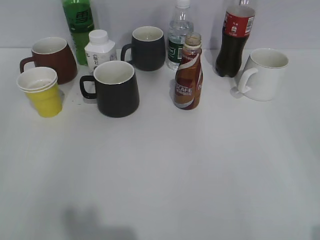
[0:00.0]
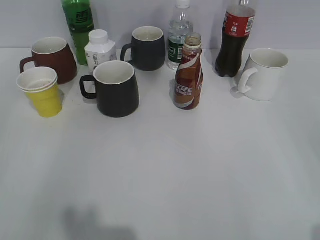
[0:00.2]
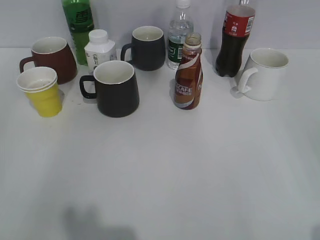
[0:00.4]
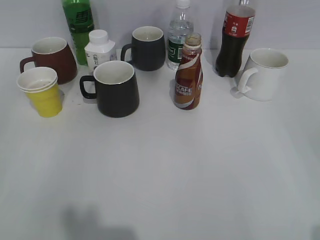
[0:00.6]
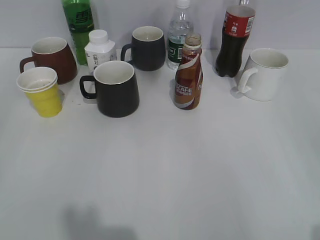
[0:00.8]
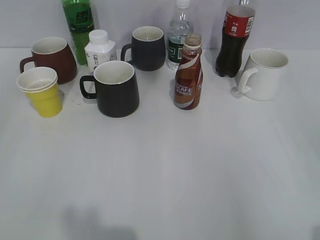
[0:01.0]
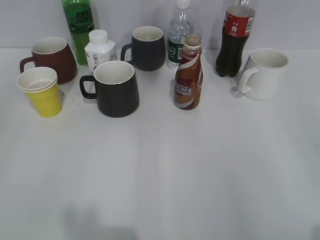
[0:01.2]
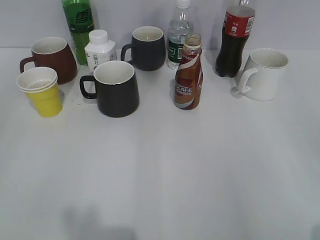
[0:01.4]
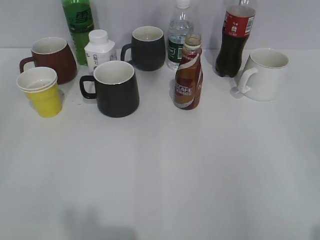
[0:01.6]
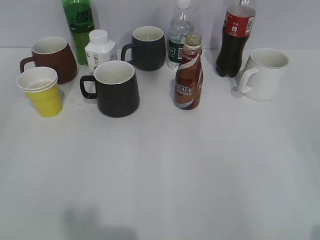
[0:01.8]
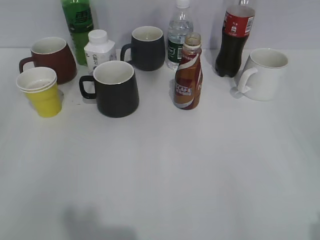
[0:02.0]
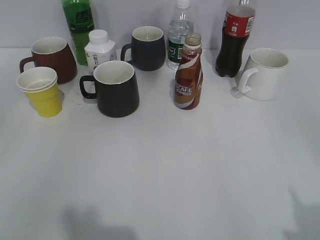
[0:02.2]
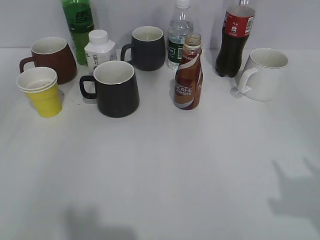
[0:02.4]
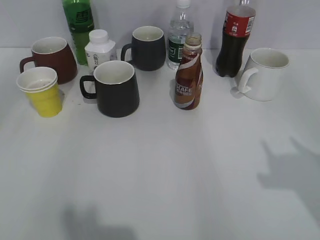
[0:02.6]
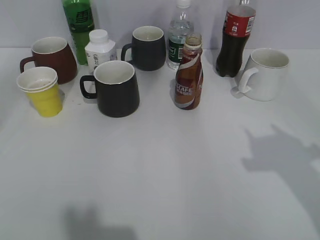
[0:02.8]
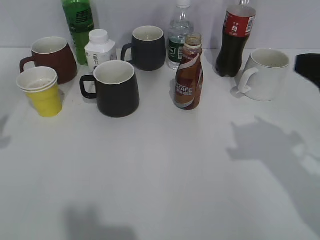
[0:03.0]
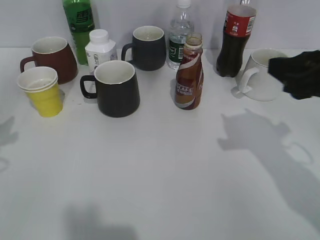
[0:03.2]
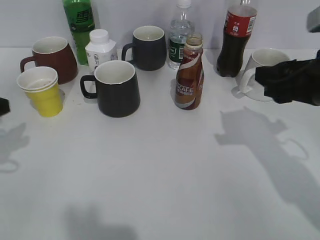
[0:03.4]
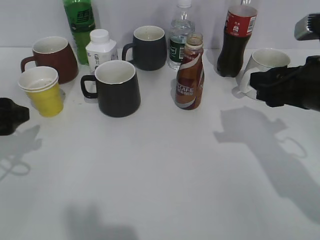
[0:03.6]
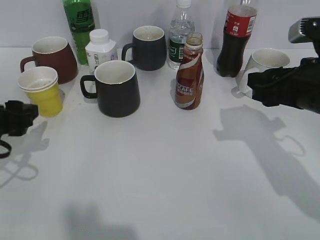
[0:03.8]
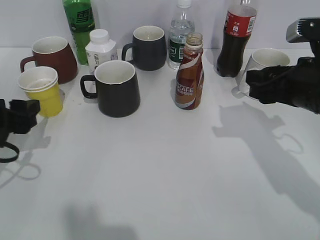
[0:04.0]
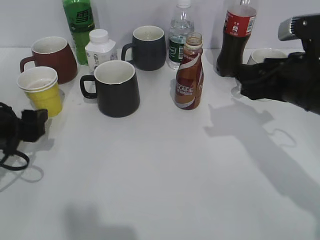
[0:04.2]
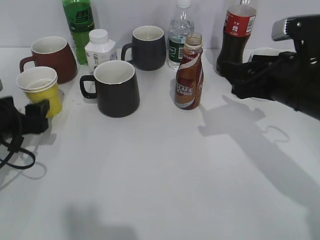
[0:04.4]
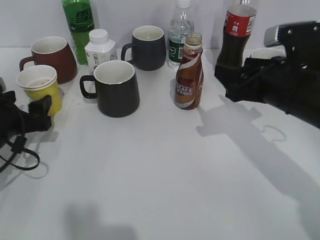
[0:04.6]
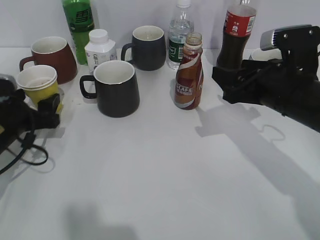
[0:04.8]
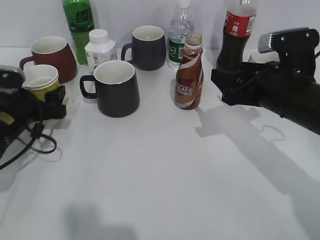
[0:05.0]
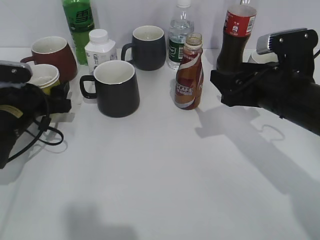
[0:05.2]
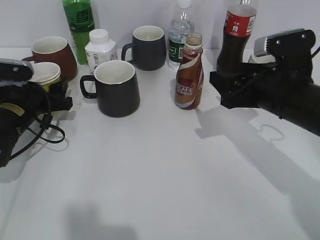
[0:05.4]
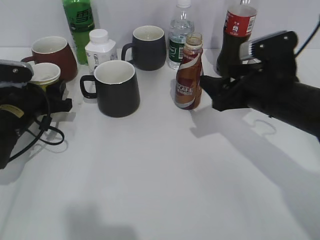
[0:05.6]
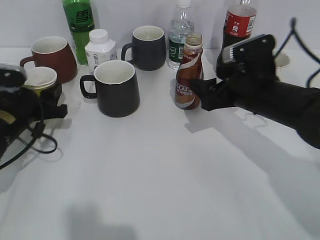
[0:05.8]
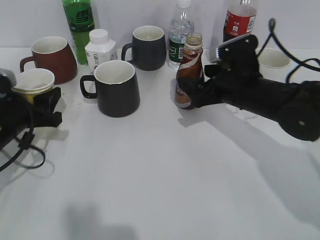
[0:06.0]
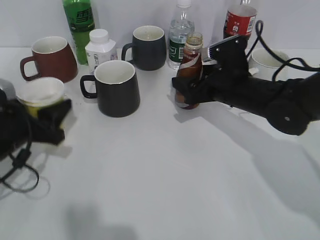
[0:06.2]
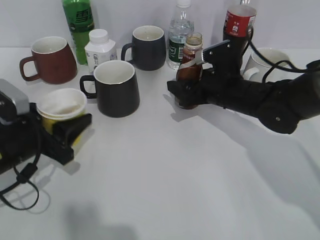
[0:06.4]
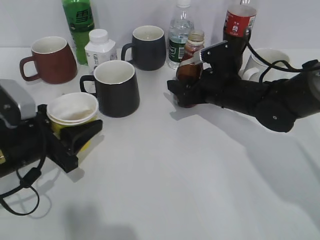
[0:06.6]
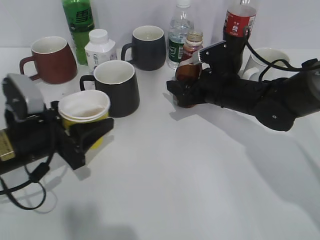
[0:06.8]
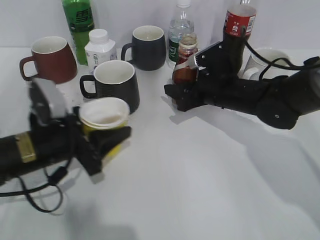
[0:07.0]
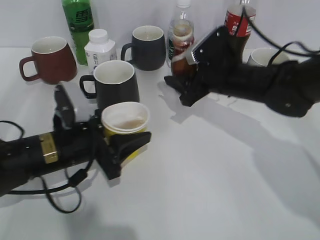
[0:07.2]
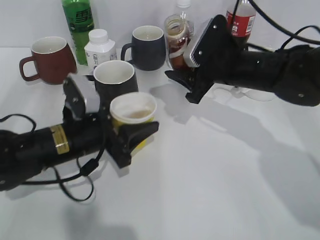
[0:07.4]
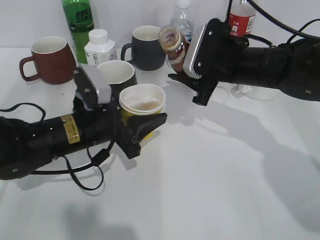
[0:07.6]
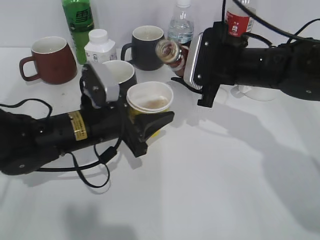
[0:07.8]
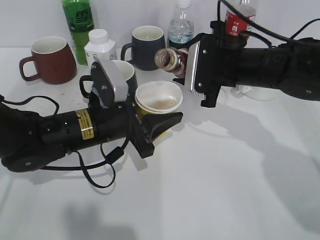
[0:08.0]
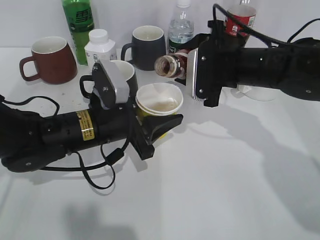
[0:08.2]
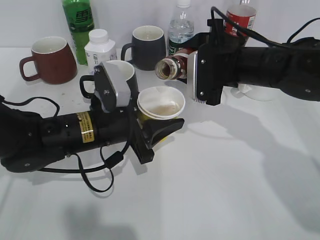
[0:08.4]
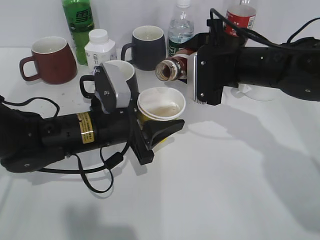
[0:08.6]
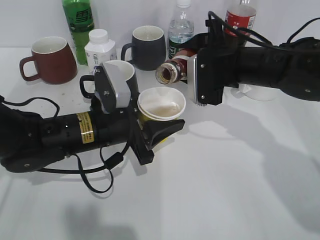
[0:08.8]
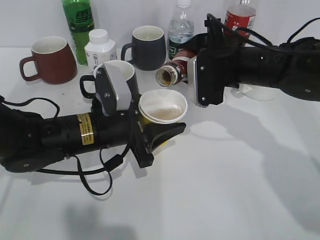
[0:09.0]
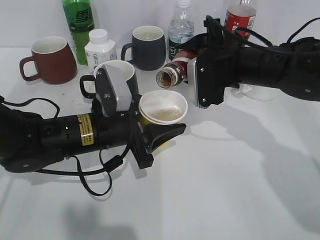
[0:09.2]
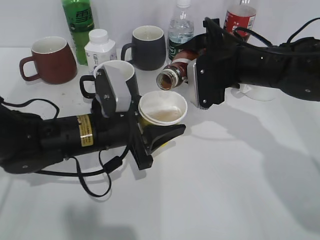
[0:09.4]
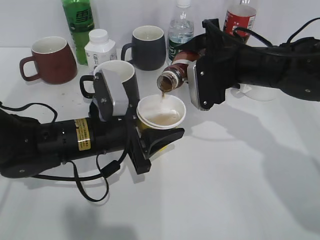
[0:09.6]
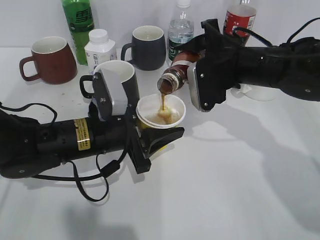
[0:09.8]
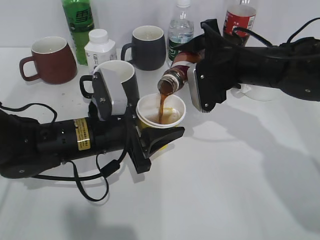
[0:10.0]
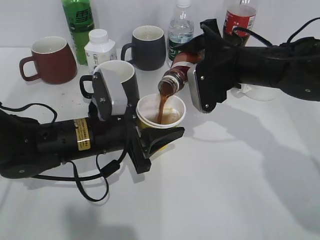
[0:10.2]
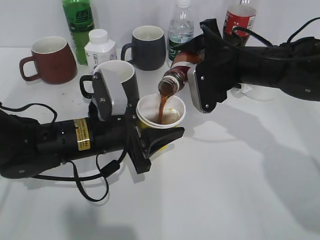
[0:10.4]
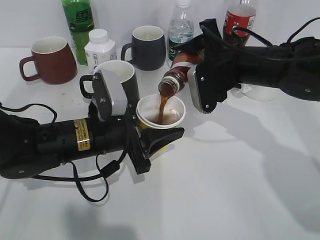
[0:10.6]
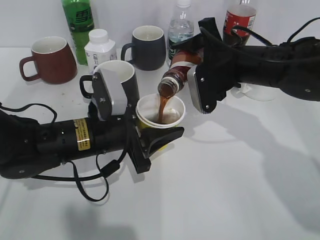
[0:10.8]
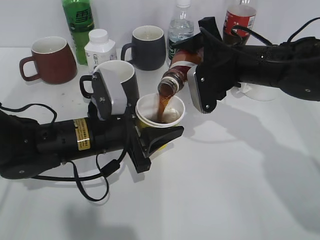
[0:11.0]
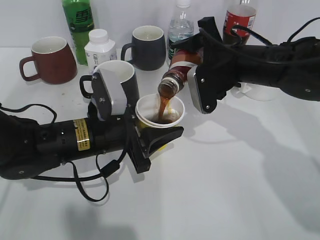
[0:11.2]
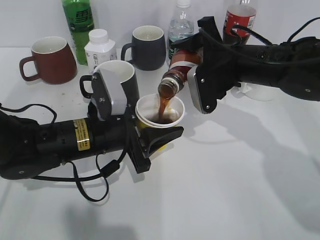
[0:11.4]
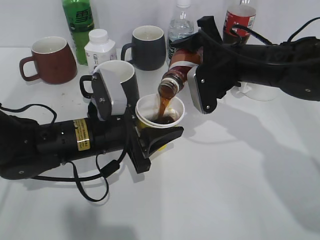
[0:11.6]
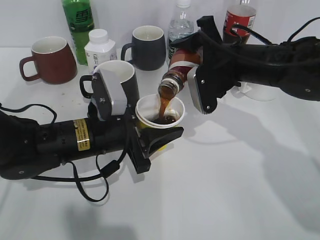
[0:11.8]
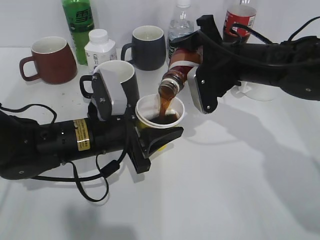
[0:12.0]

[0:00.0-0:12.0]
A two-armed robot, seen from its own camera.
Step, 0:01.8 to 0:05.4: Grasp the yellow paper cup with left gripper.
Step, 0:05.6 to 0:06.6: Grasp the bottle with coffee with right gripper.
0:01.6 to 0:03.0: Both grippers move forward, some 20 cm. The left gripper opens.
0:03.0 to 0:04.4: The left gripper heads downward and forward, covering approximately 15 cm. The right gripper goes about 15 cm forward, downward and to the left, and opens its fingers.
0:04.4 to 0:06.0: The left gripper closes up. Meanwhile the right gripper moves forward and downward, about 10 cm, and opens up.
0:06.0 to 0:07.6: The right gripper moves about 5 cm, and closes up. The left gripper travels to the right by approximately 15 cm.
0:09.0 to 0:12.0: The grippers make only small movements.

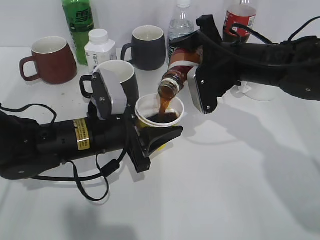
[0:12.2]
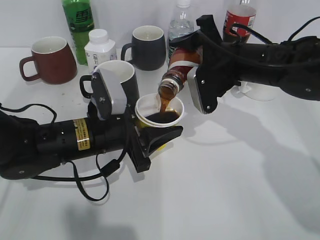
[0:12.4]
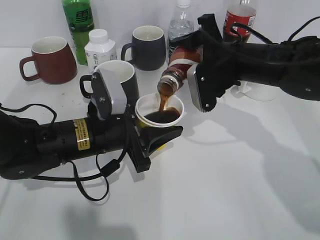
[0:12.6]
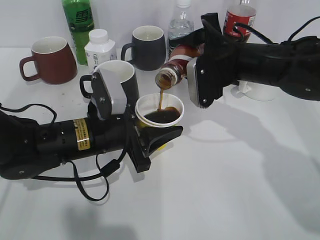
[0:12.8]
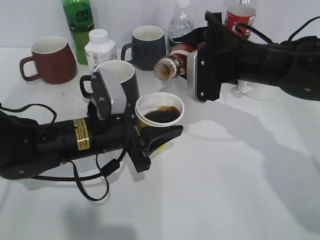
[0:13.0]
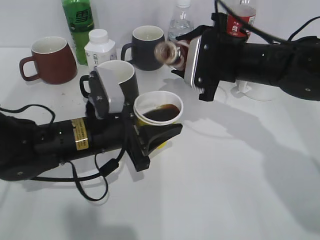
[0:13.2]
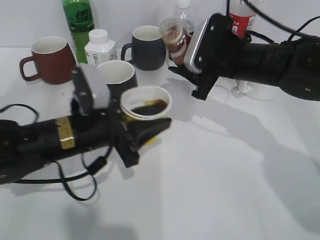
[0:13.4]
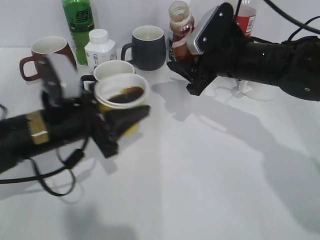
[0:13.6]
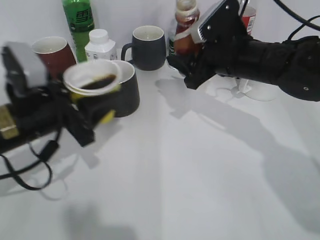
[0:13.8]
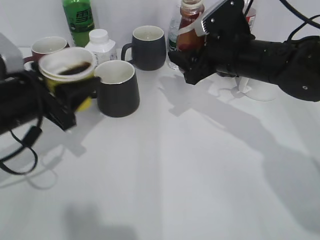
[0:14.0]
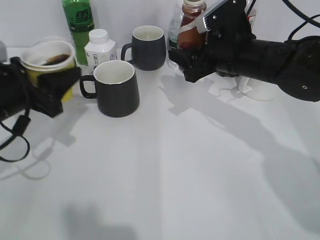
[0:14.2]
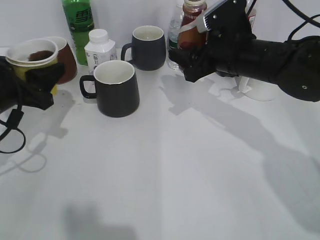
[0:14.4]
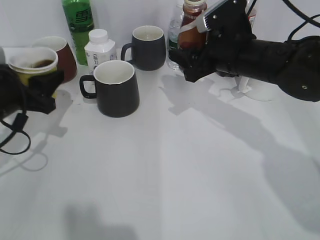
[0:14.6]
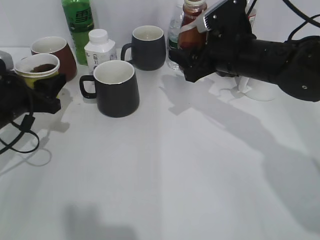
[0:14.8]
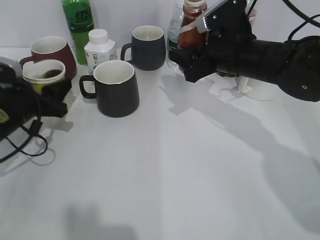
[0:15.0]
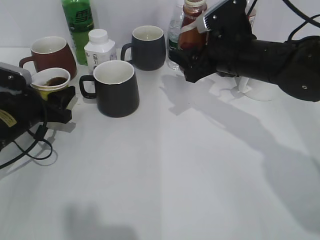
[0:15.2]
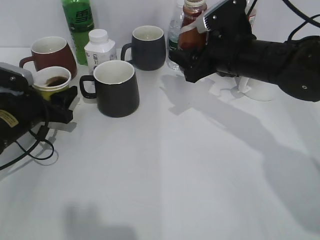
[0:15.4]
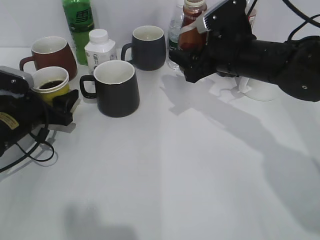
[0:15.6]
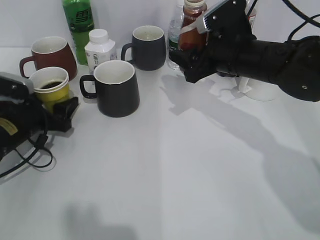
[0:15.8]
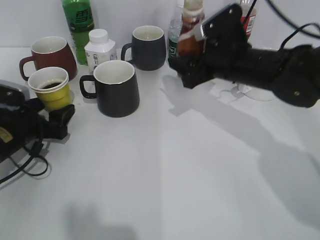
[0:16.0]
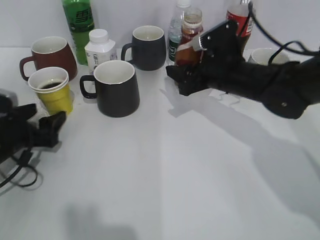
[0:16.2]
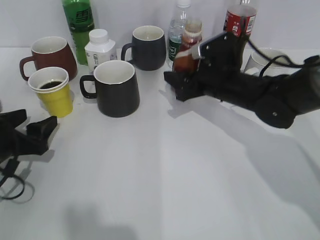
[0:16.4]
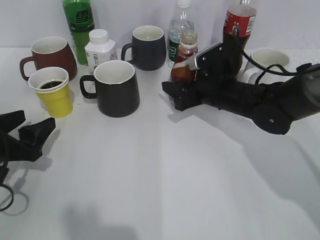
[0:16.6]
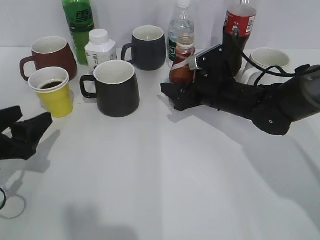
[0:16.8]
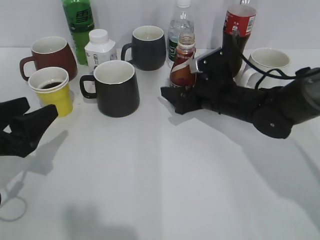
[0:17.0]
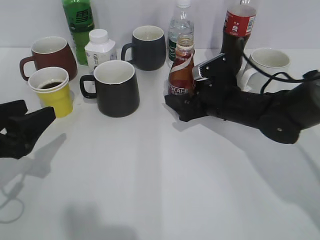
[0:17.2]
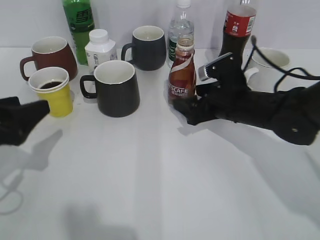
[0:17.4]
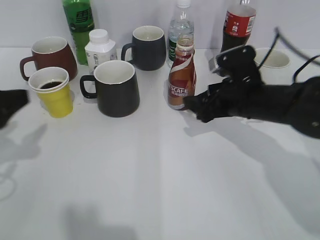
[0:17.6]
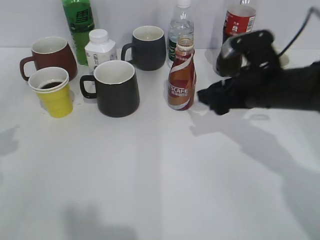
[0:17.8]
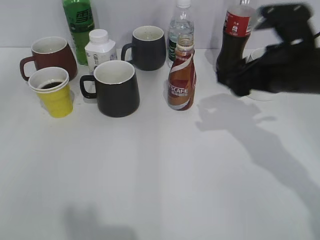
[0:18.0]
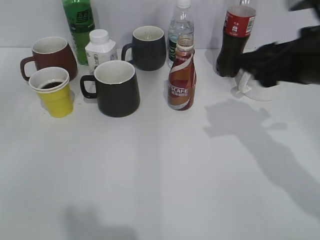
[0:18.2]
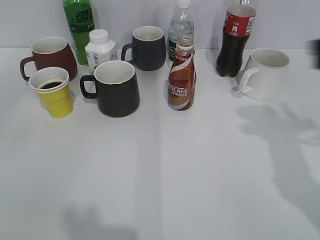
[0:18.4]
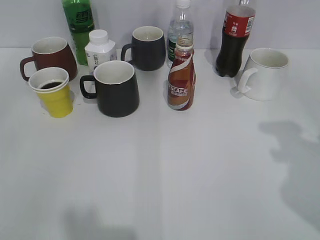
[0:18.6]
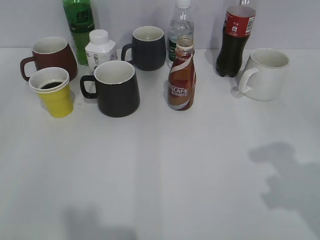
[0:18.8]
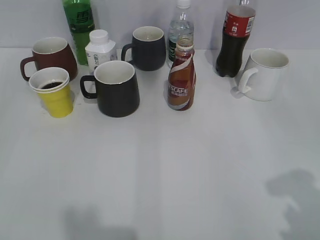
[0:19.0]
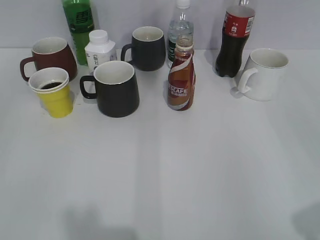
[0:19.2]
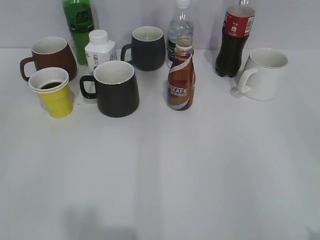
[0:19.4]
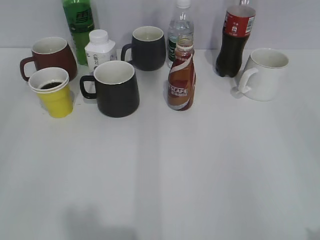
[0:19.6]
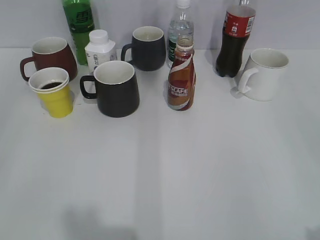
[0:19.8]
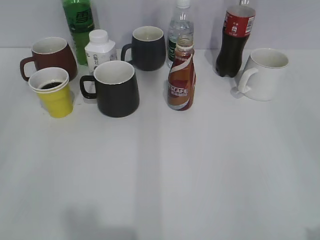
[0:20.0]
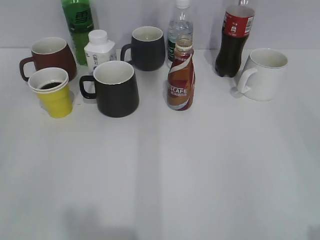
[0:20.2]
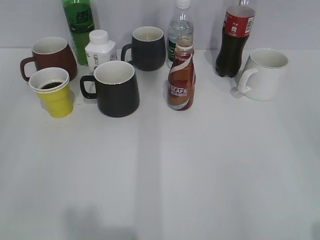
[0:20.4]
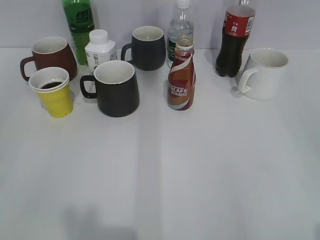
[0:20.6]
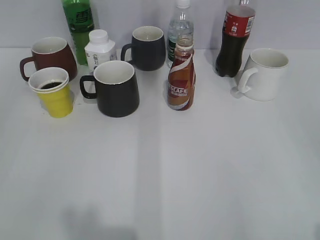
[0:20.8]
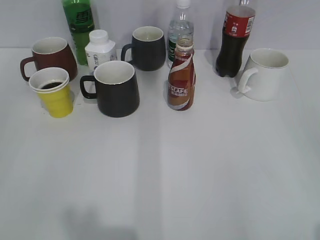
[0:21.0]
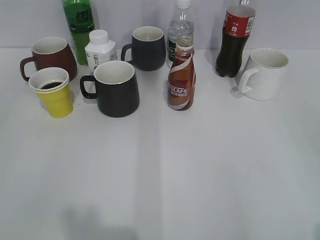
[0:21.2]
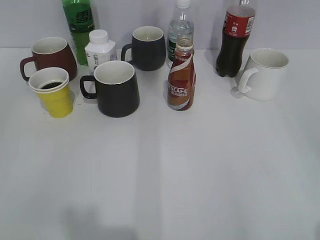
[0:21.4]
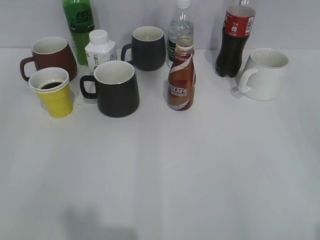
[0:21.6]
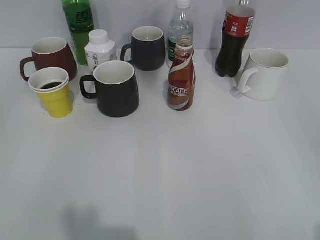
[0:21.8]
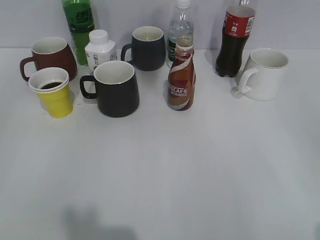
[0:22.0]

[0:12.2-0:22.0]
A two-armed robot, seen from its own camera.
Step, 0:13.2 to 0:15.8: Place the yellow paper cup on the table with left gripper.
Step, 0:16.0 to 0:17.6: Place the coffee bottle on the table with right gripper.
0:12.2 to 0:13.6: The left gripper ends up some 5 cm from where it was.
0:13.6 to 0:15.0: The left gripper travels to the left and forward by some 10 cm.
0:15.0 to 0:16.4: The left gripper moves backward, about 5 cm, and opens up; the right gripper shifts some 5 cm downward.
0:16.4 to 0:17.8: The left gripper shifts approximately 15 cm upward. The right gripper heads backward, covering some 5 cm, and opens its fingers.
0:17.8 to 0:19.2: The left gripper goes about 20 cm backward. Meanwhile the right gripper heads backward and to the right, covering roughly 30 cm, and closes its fingers.
